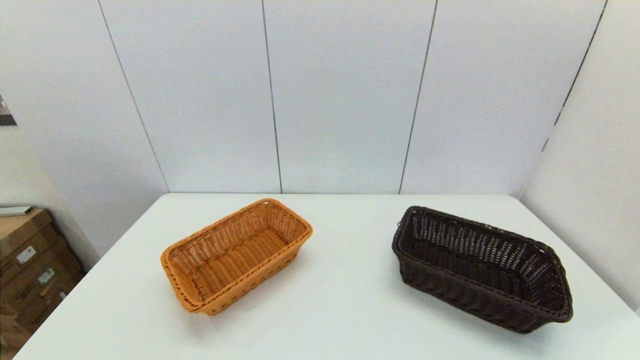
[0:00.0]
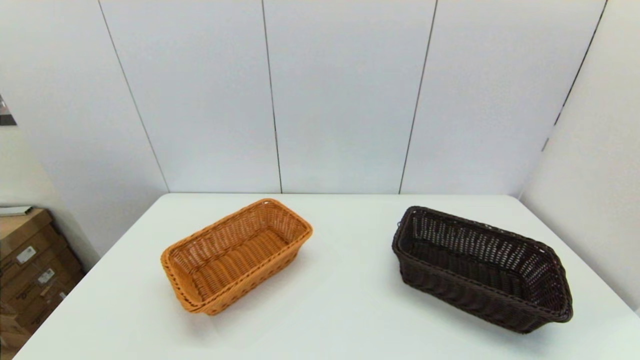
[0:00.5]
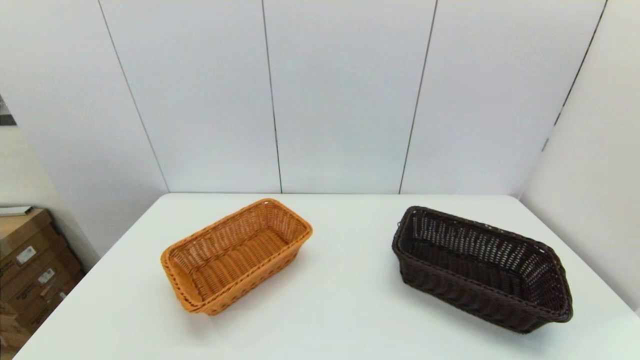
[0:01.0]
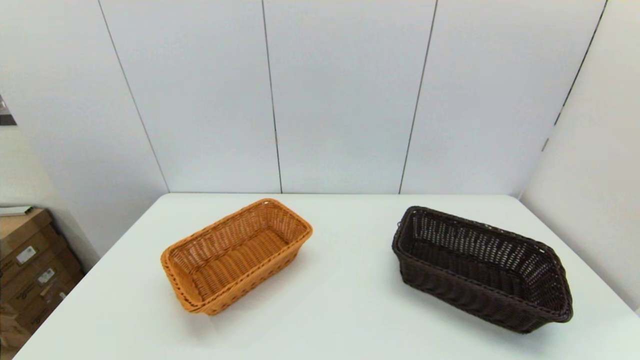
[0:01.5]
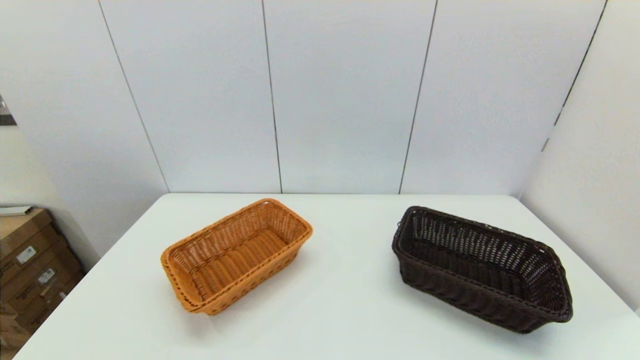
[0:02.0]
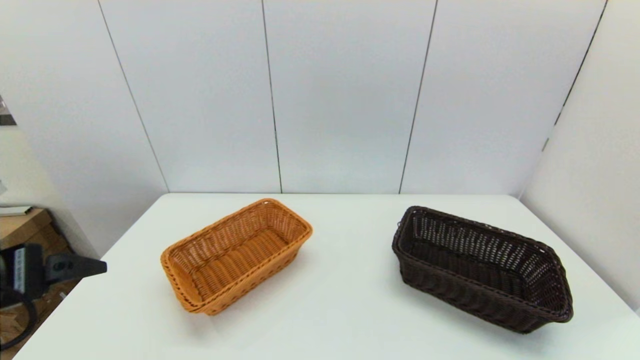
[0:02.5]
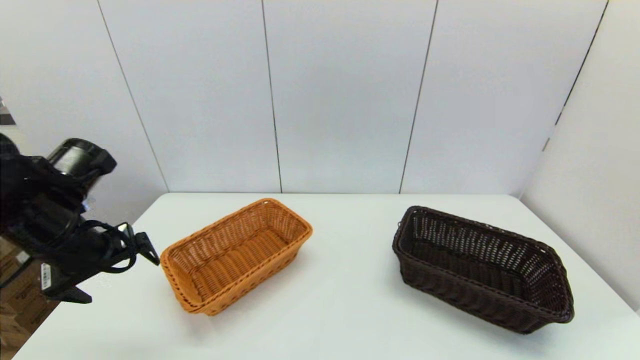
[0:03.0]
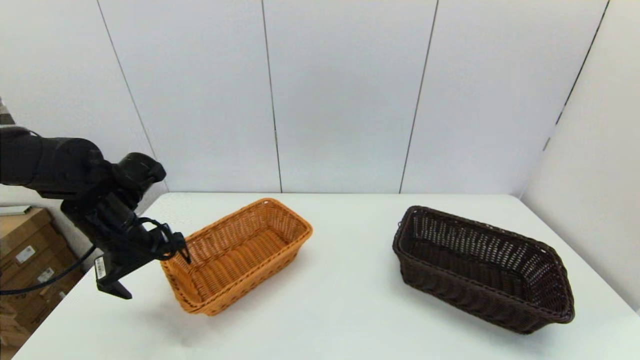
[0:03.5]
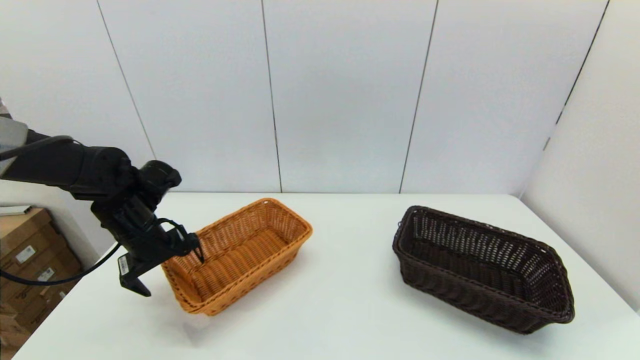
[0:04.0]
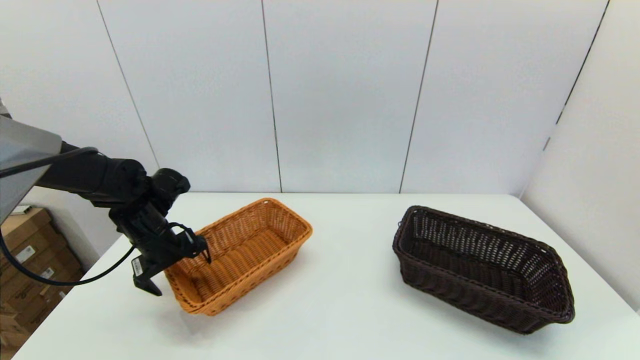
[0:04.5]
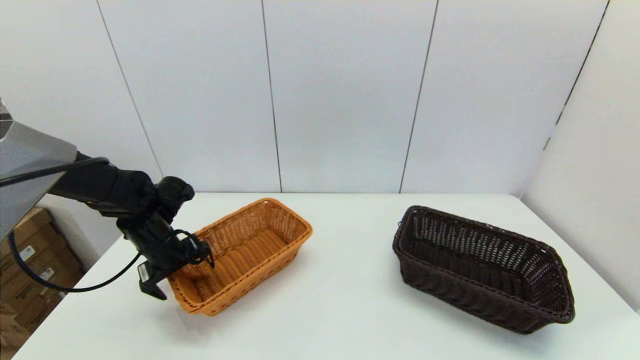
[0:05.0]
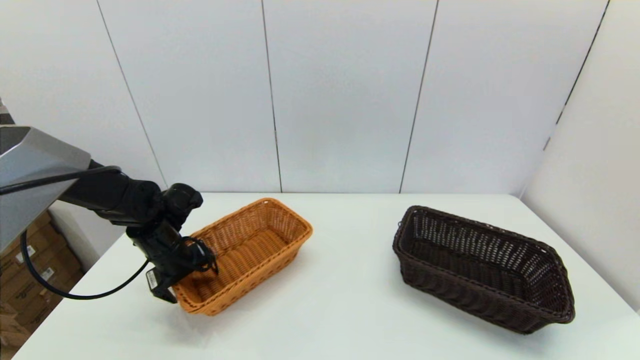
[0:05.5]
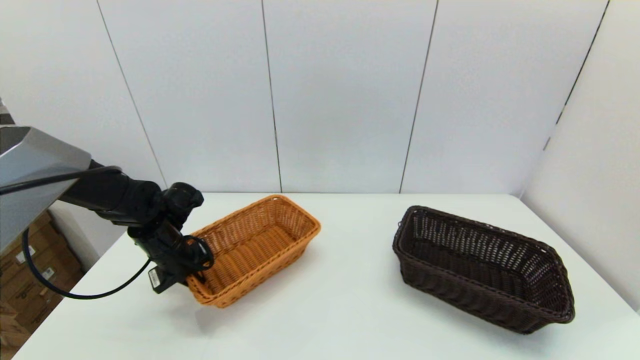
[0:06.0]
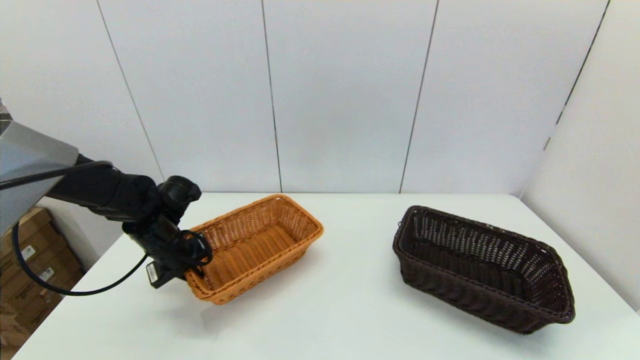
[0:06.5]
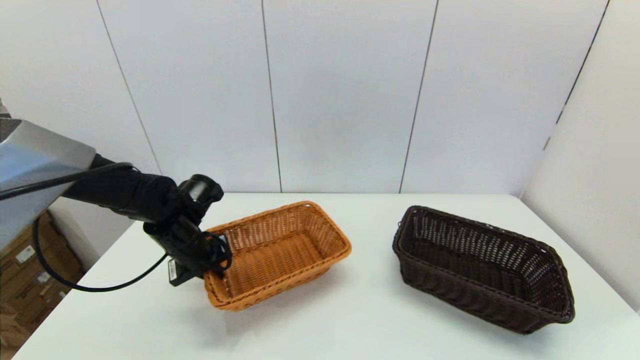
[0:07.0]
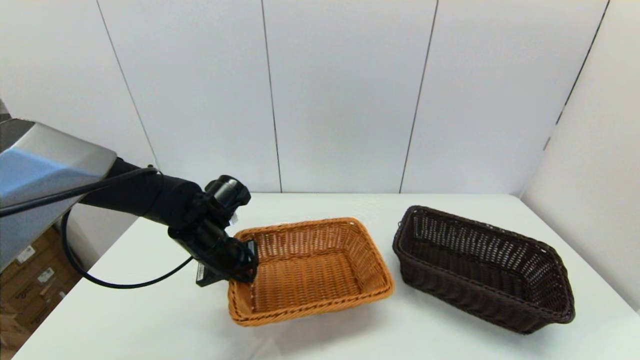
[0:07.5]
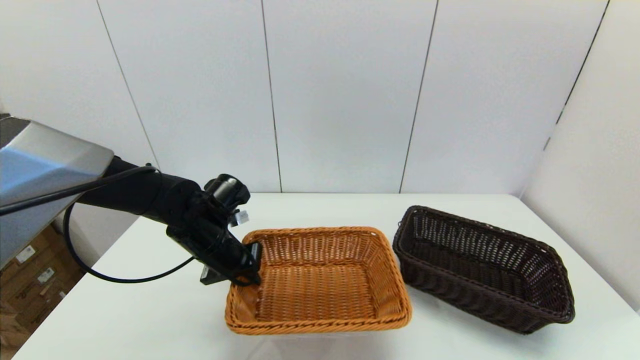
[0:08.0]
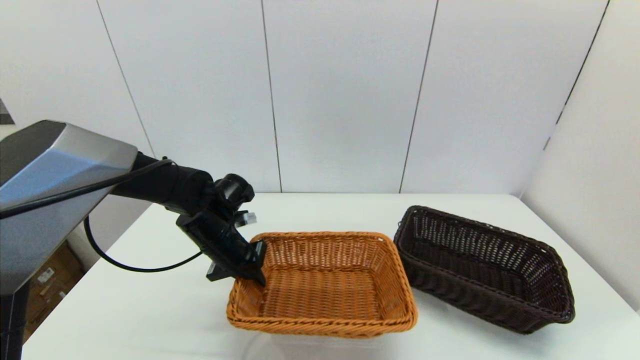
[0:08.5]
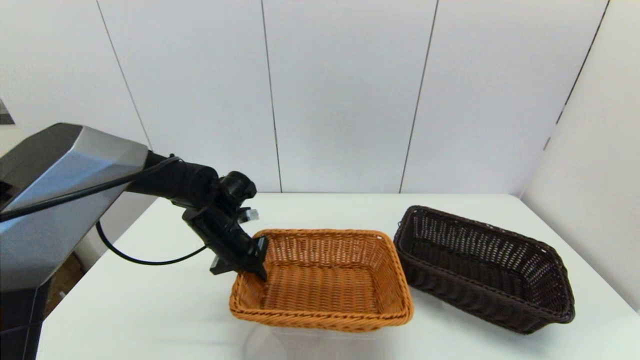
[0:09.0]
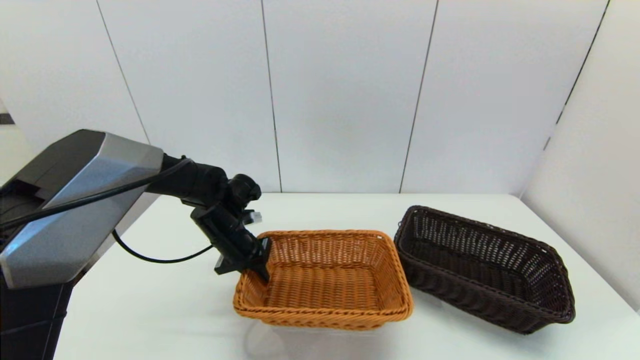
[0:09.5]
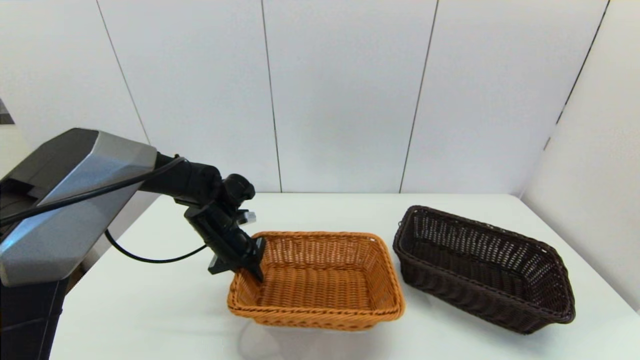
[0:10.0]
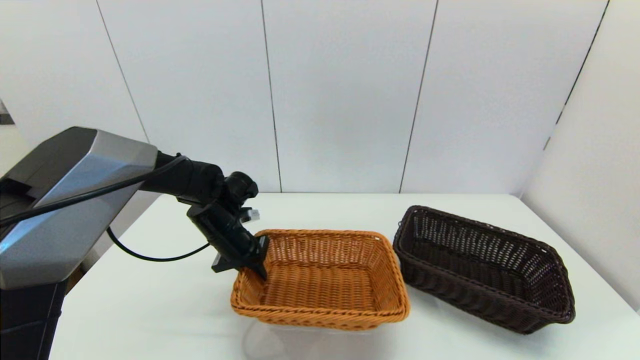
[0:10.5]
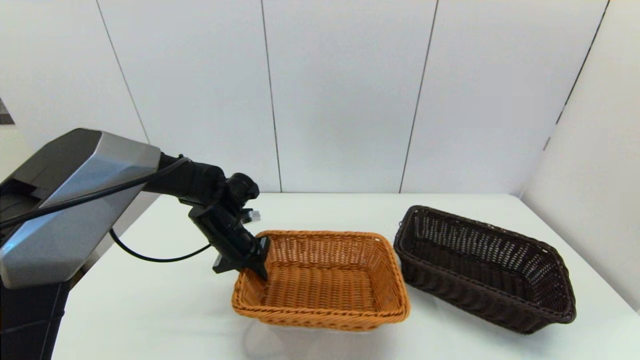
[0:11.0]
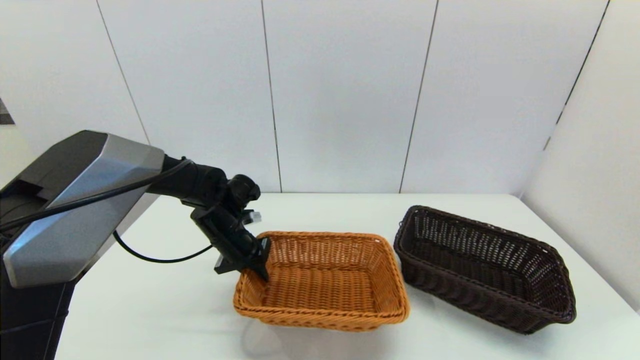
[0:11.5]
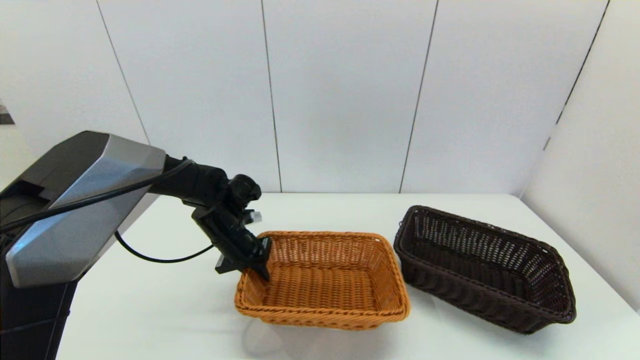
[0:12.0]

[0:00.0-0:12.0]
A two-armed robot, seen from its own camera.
Task of the whole recording: stack a basket on top of another basket.
Step, 2.5 to 6.5 s: Grasp the light basket with the left gripper.
2.0 to 4.0 s: The left gripper shifts some 35 cm forward.
4.0 to 6.0 s: The left gripper is displaced downward by some 5 cm, and closes.
6.0 to 8.0 s: The left gripper is displaced to the right by roughly 10 cm.
8.0 to 10.0 s: The grippers make only small movements.
10.0 to 12.0 s: The two grippers keep their place.

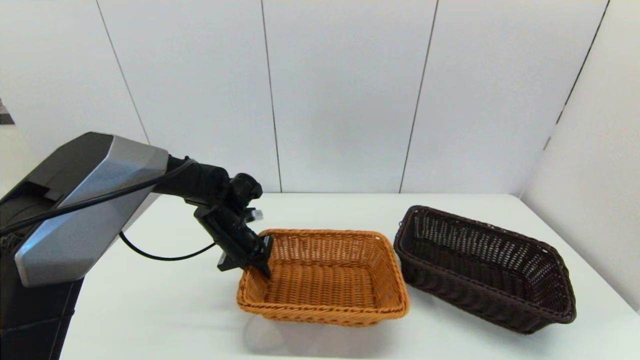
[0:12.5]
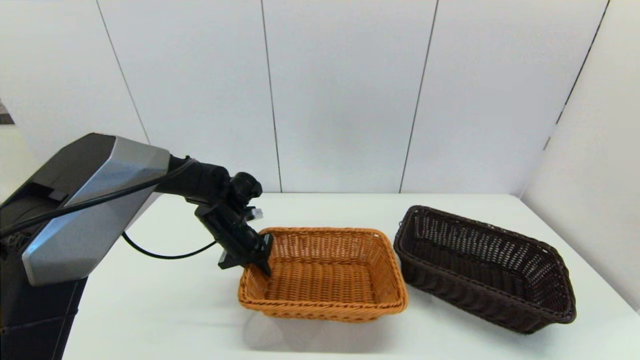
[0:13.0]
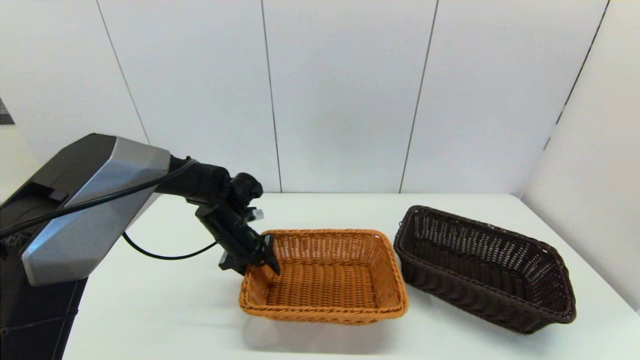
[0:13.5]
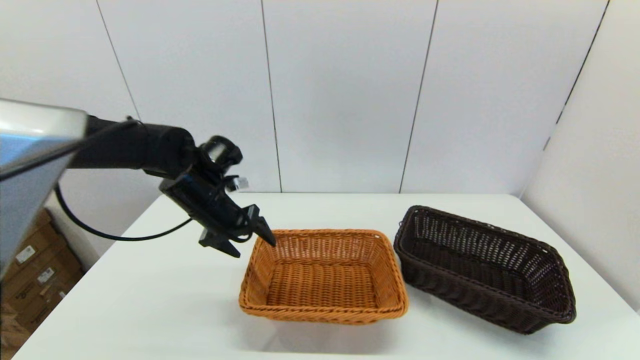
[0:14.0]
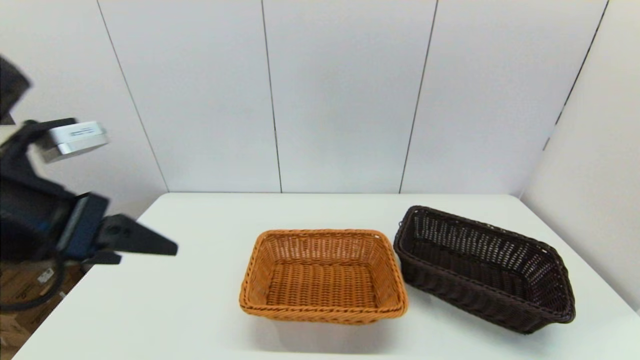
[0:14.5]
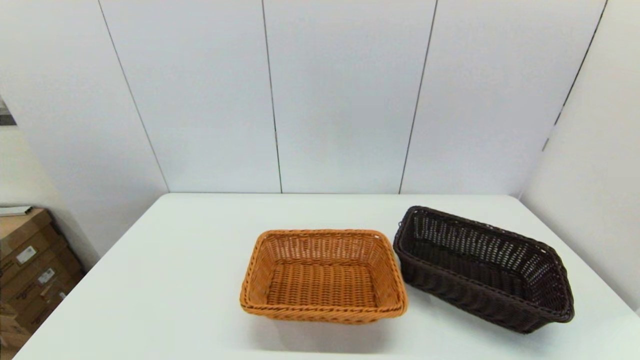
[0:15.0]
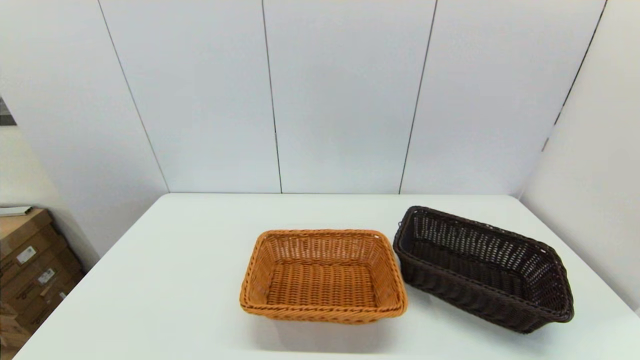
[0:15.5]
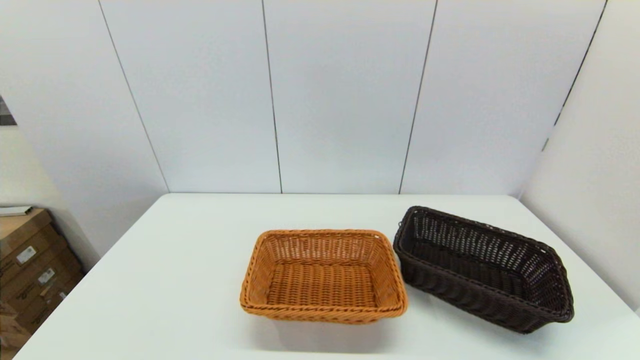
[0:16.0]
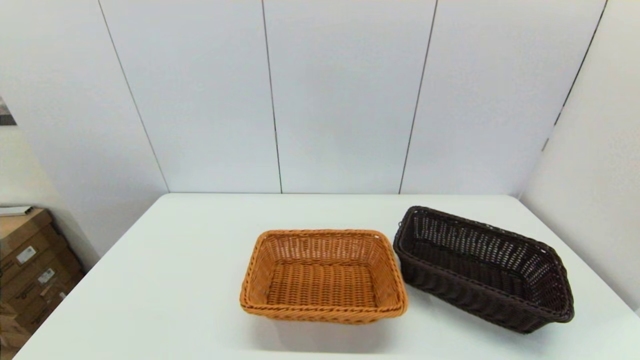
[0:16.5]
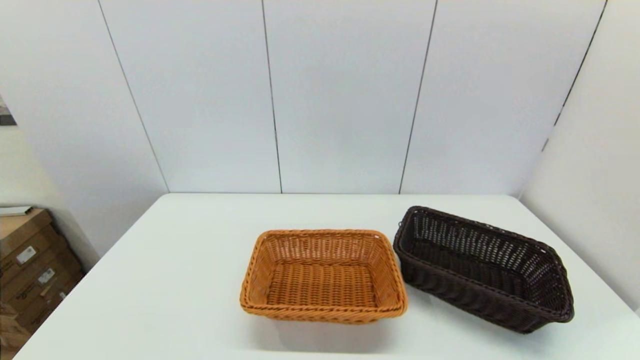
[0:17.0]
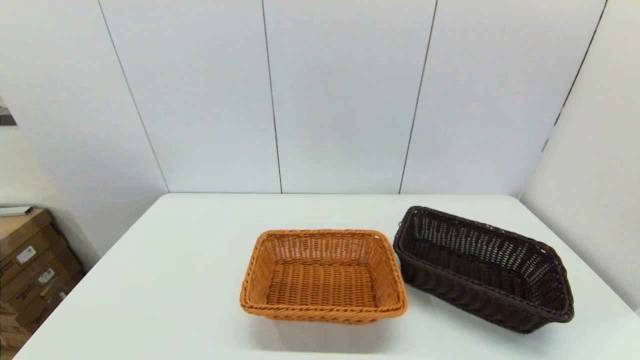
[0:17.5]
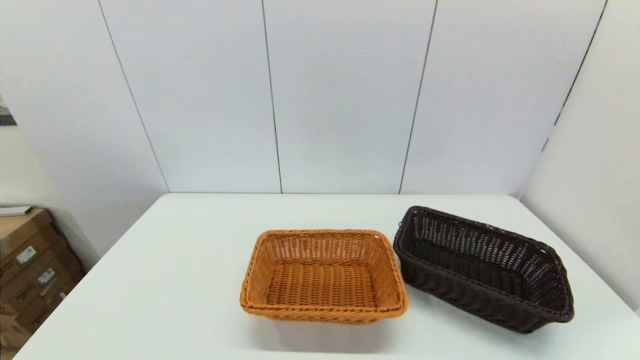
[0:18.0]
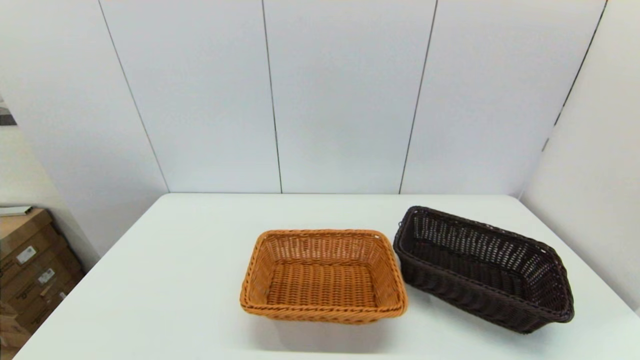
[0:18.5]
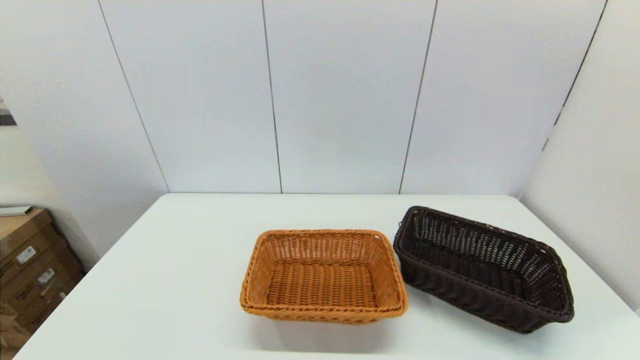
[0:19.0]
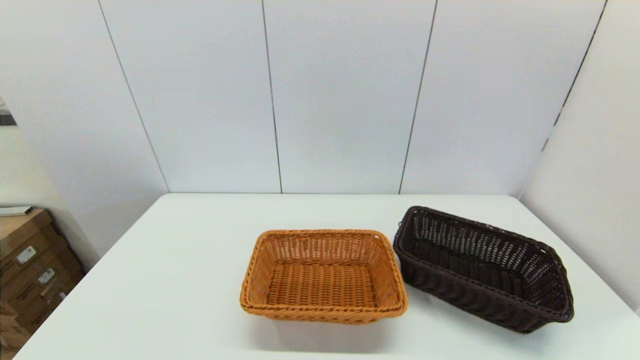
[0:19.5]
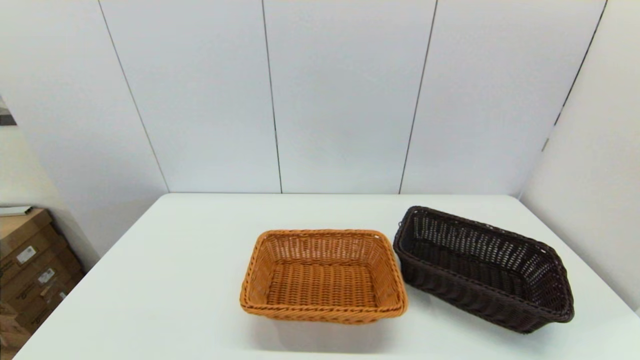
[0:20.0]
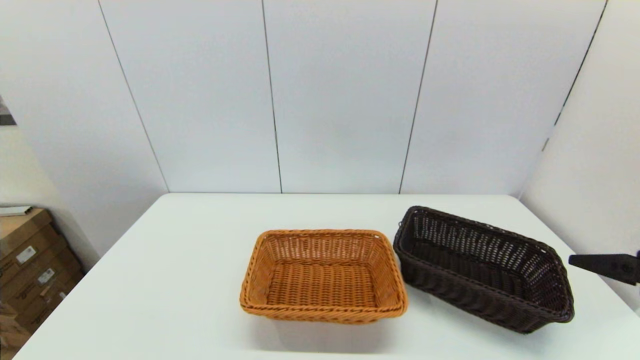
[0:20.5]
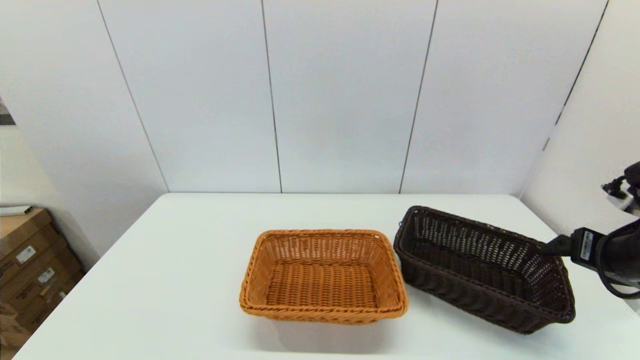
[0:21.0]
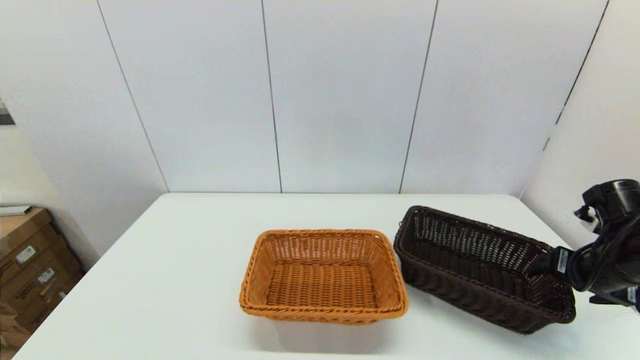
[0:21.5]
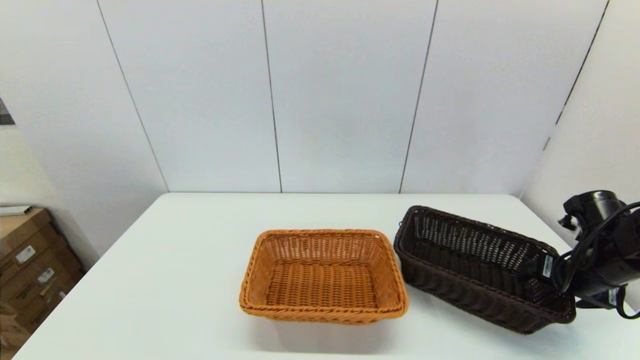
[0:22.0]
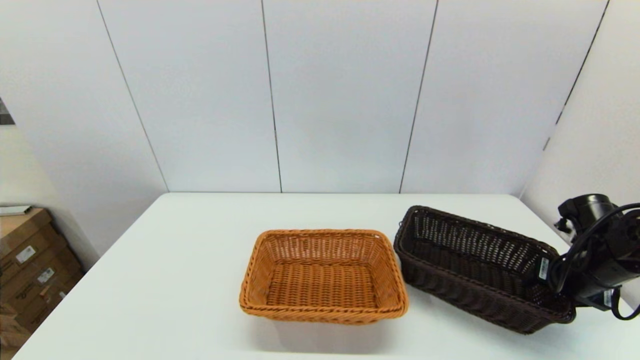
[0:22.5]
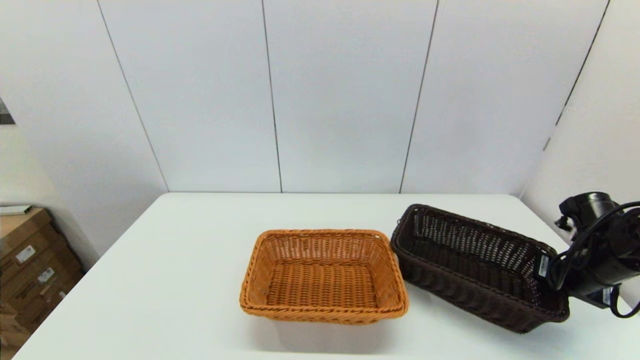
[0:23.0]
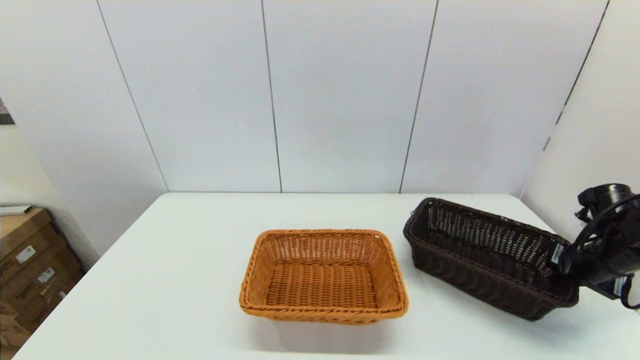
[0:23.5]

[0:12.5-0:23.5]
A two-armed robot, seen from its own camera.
Task of the whole recording: stack a basket on top of another basket.
Step, 14.5 to 23.0 s: Grasp the dark basket with the right gripper.
12.5 to 14.5 s: The left gripper shifts some 35 cm backward and upward, and opens.
14.5 to 16.0 s: The left gripper travels backward and downward by roughly 30 cm.
20.0 to 21.5 s: The right gripper shifts approximately 25 cm forward and downward.
21.5 to 23.5 s: The right gripper shifts by approximately 5 cm, and closes up.
